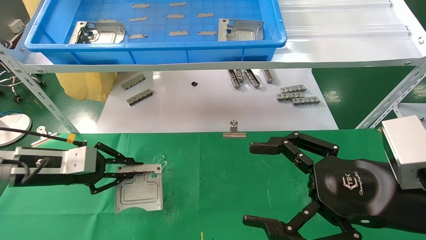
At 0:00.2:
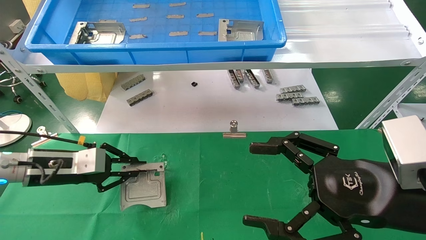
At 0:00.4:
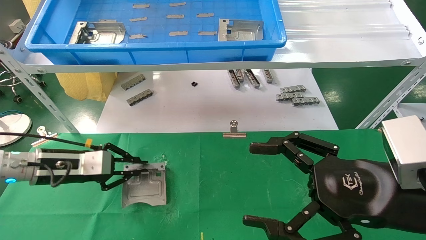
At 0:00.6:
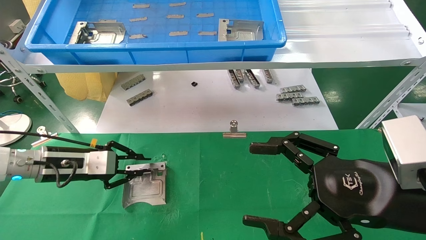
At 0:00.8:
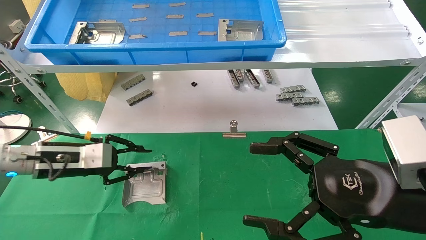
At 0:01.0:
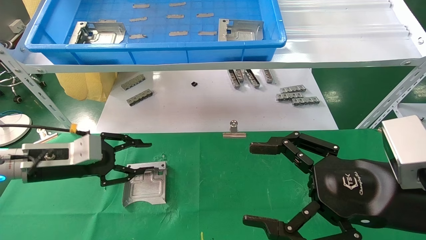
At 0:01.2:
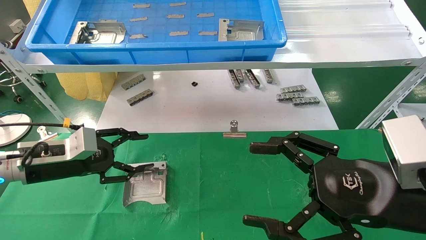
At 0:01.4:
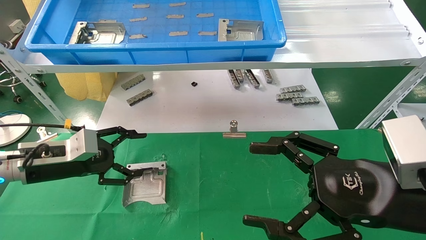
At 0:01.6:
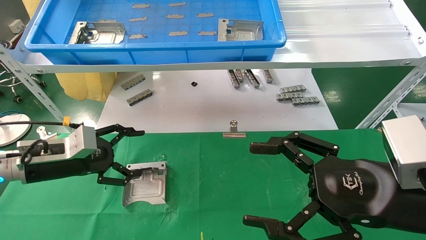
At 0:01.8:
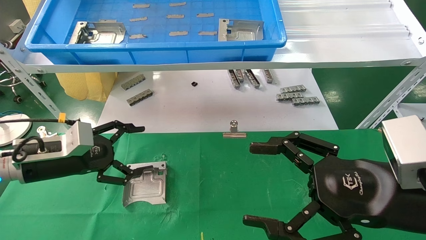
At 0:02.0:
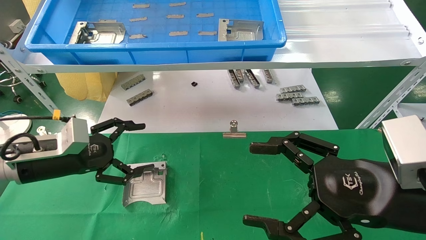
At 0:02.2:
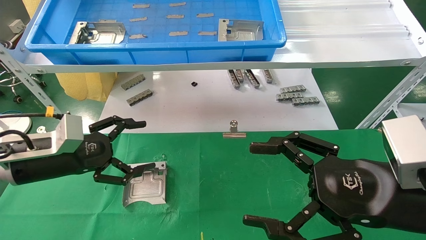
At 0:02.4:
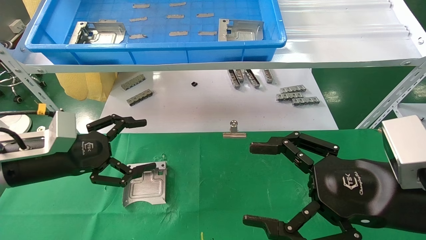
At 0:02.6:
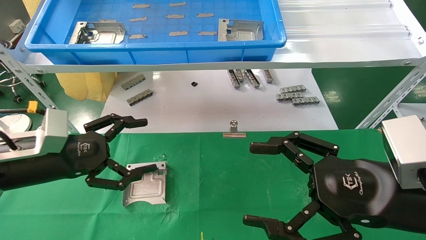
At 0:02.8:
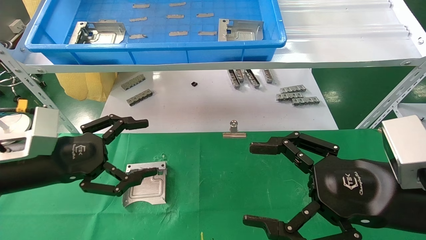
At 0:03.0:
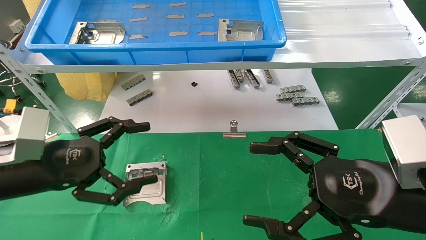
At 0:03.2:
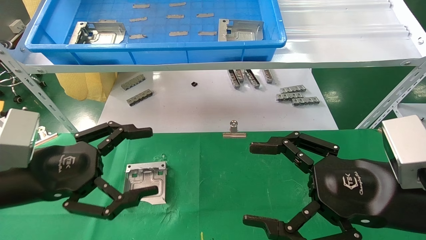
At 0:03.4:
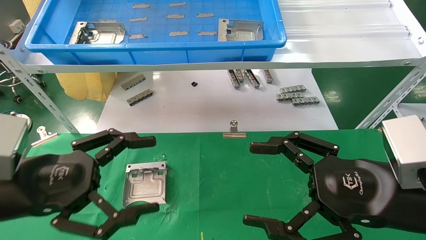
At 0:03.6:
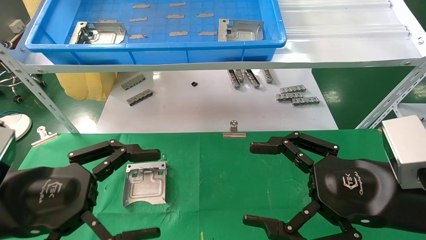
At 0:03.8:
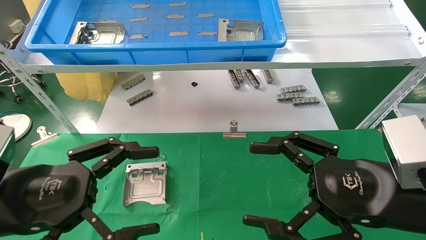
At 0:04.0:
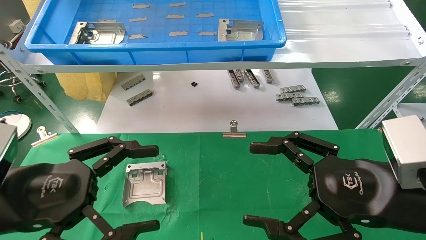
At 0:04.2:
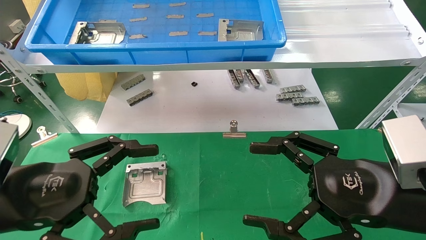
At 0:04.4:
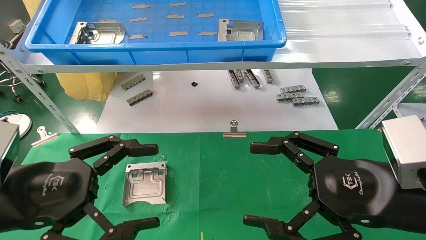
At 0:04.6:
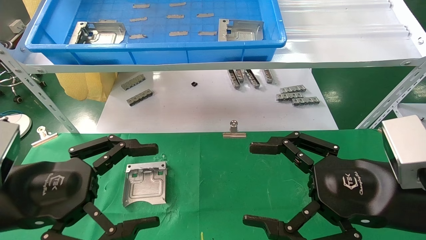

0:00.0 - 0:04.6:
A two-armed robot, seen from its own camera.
Task of the whole recording: use the mechanical arm to pick up the parts and place them on the table.
Step, 0:00.0 - 0:01.4: Place the hard drive bracket into the box.
0:00.0 - 0:01.6: The left gripper opens up.
0:01.6 - 0:03.0: The left gripper shifts approximately 10 cm backward.
0:03.0 - 0:04.6: The left gripper heads backward, covering some 5 cm.
